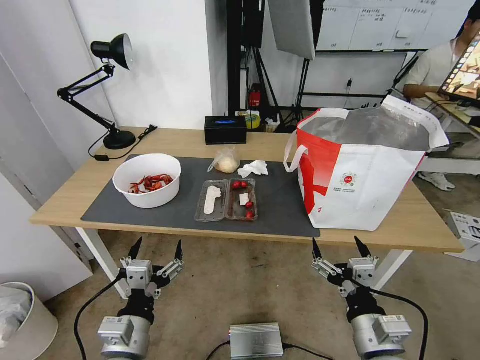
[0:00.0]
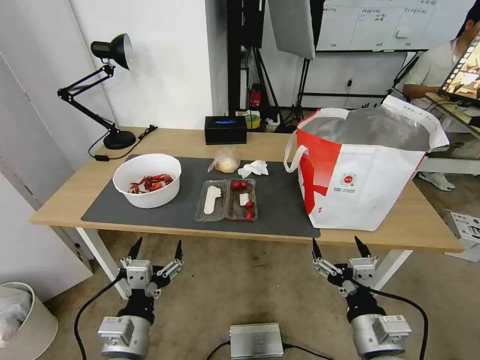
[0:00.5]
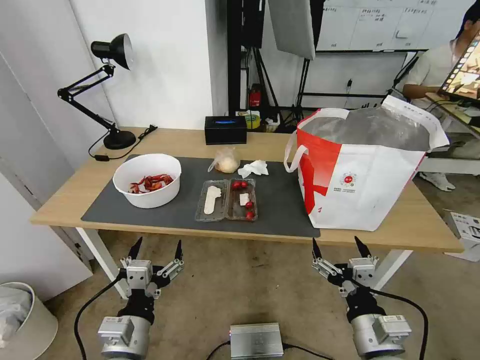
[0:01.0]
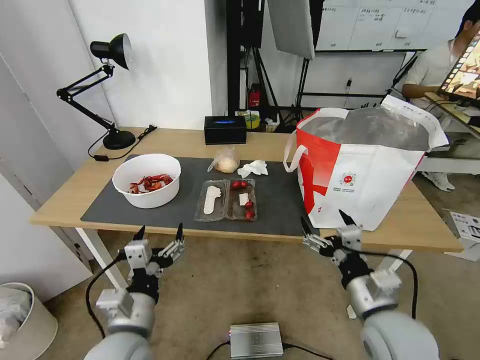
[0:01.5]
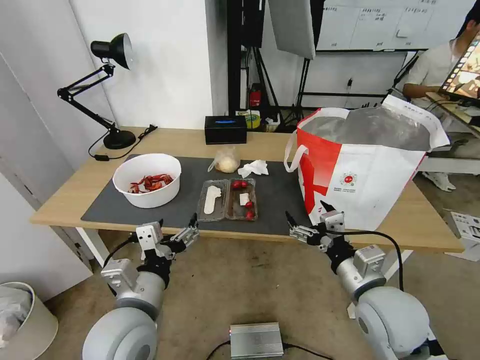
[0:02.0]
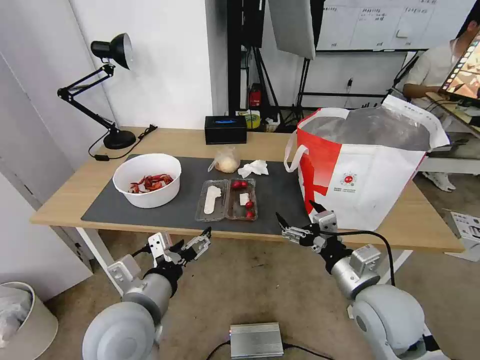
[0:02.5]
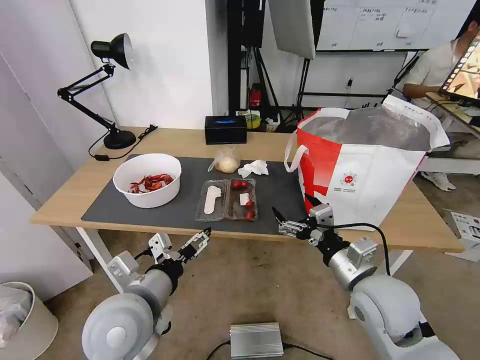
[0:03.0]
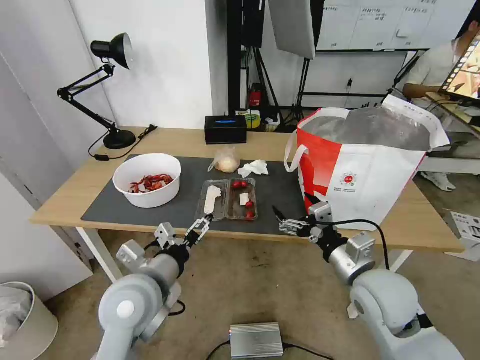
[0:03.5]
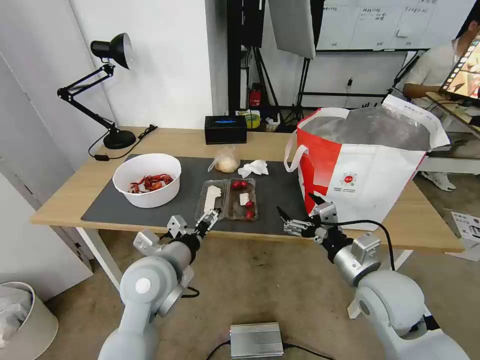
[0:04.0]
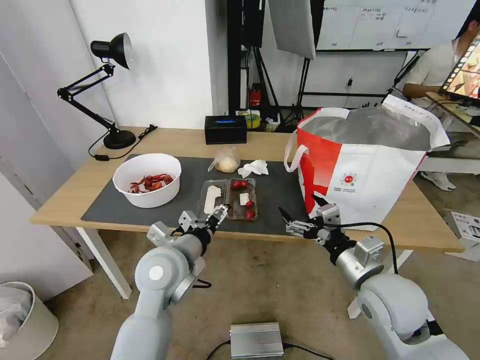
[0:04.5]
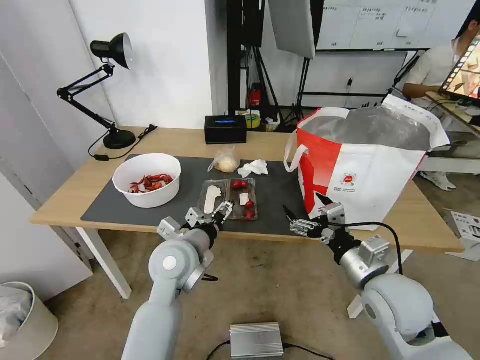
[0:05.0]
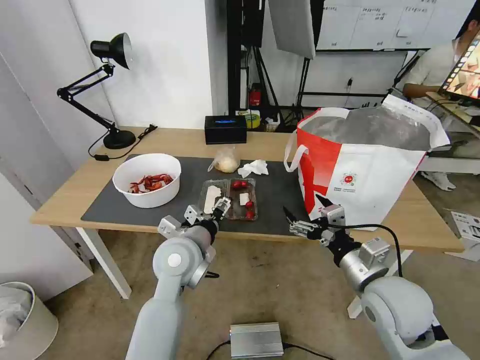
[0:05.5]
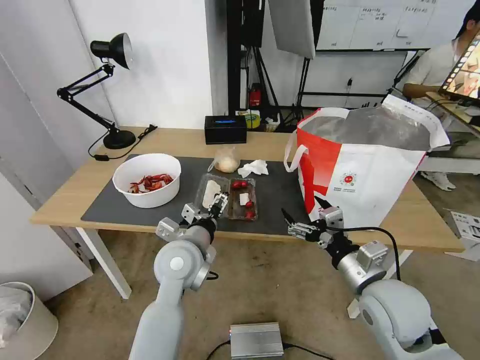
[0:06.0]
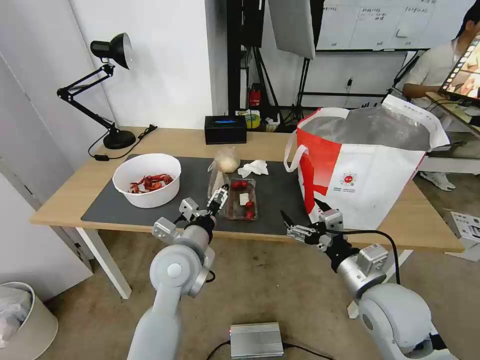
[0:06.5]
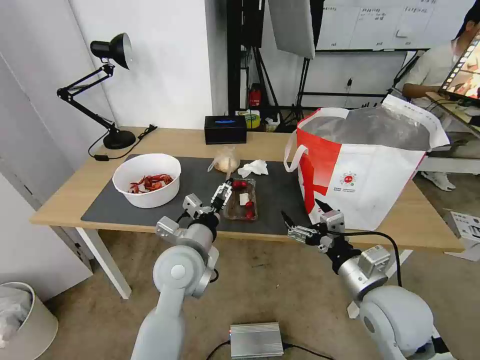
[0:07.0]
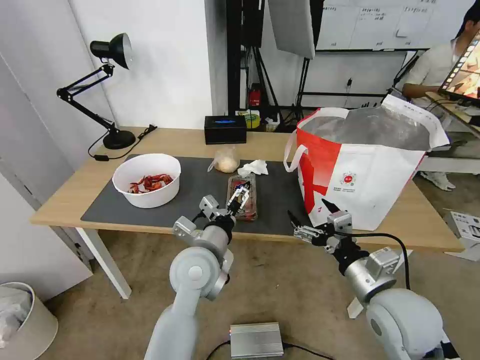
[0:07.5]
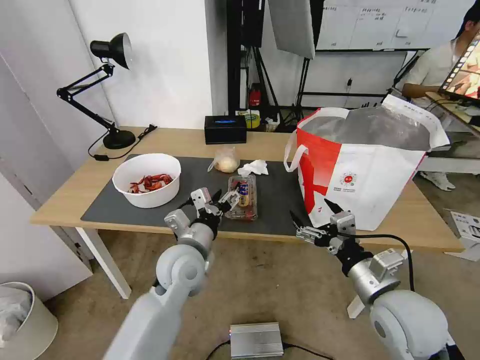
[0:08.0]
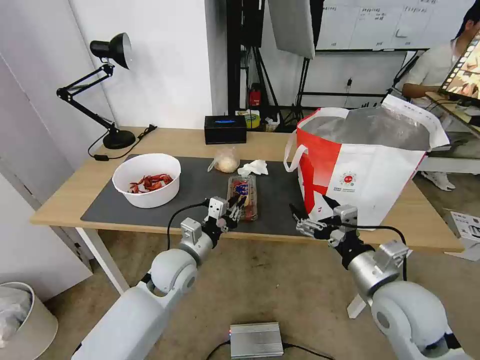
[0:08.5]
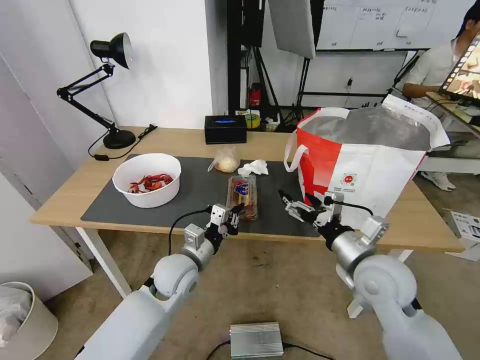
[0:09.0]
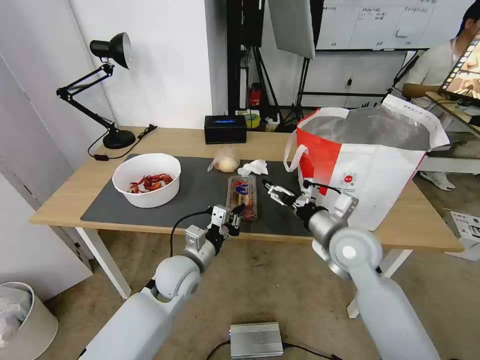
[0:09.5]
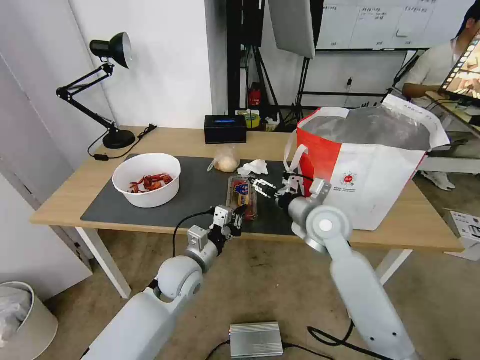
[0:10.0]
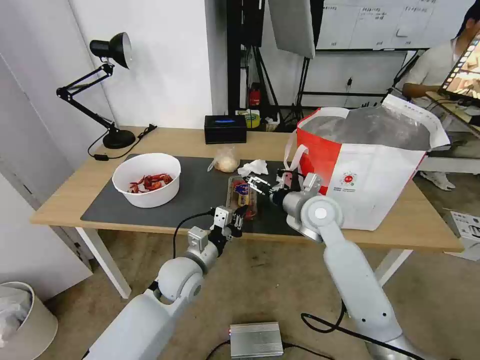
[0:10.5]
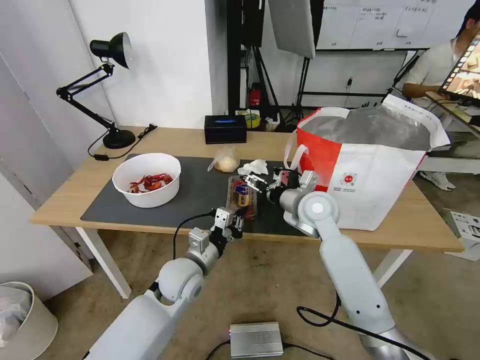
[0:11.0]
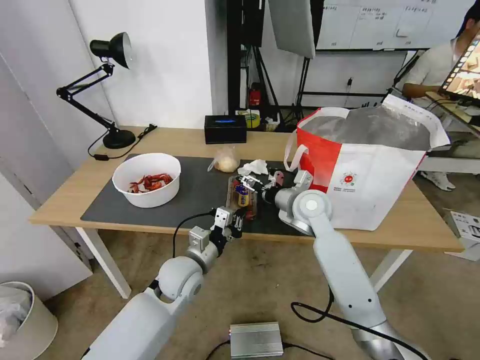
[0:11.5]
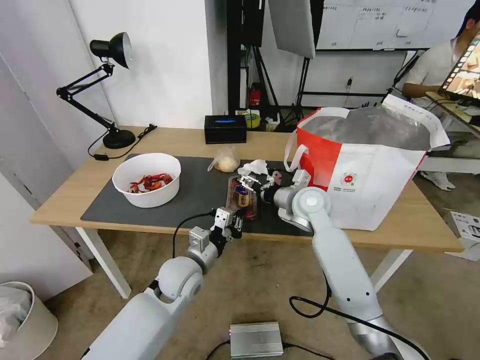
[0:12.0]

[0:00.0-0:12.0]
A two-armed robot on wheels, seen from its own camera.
Task of the whole recording: Pick up the trash from the table and place it into the takeout bag.
0:02.0 to 0:04.0: The left gripper goes roughly 10 cm forward.
0:04.0 to 0:06.0: The left gripper shifts by approximately 5 cm.
0:08.0 to 0:10.0: The right gripper moves forward and to the left, approximately 20 cm. Meanwhile the left gripper shifts about 5 cm downward, and closes.
0:10.0 to 0:12.0: The right gripper moves forward, approximately 5 cm.

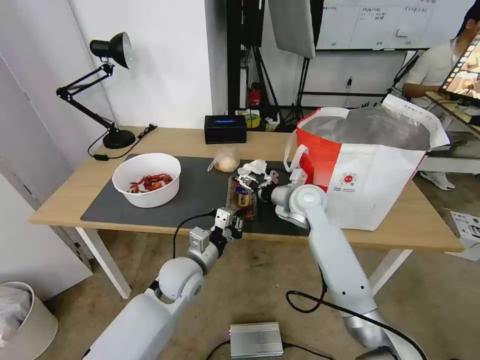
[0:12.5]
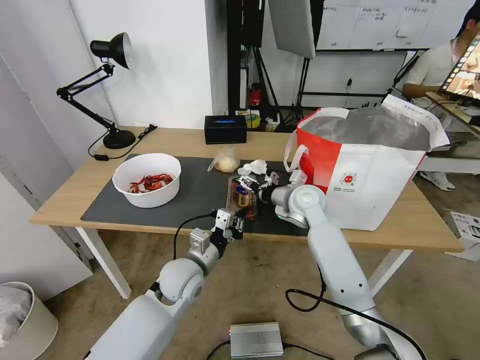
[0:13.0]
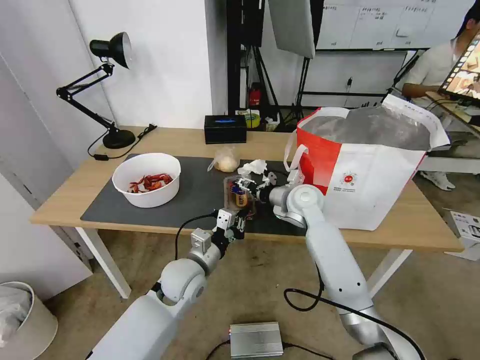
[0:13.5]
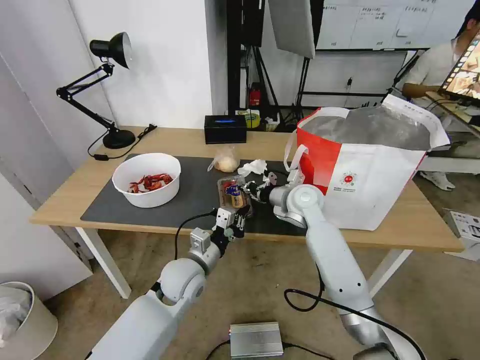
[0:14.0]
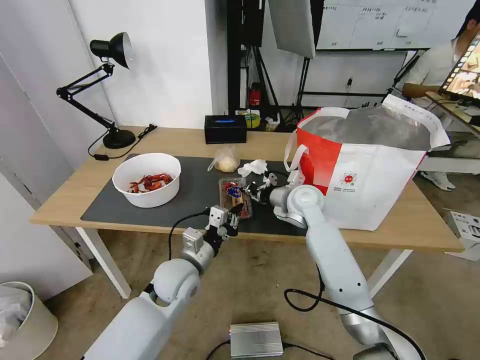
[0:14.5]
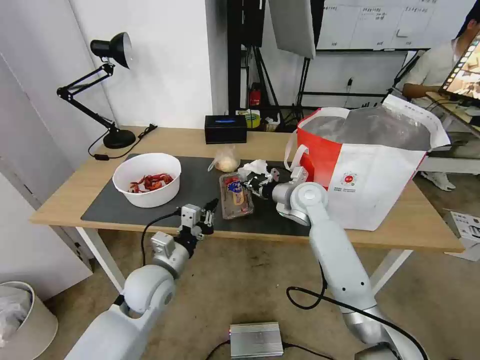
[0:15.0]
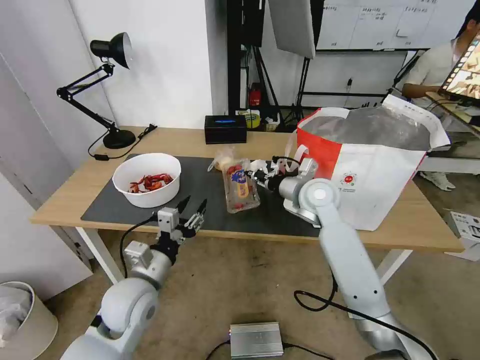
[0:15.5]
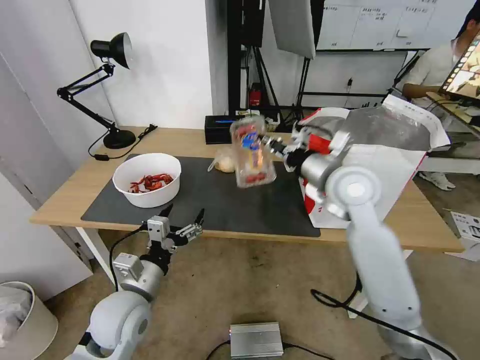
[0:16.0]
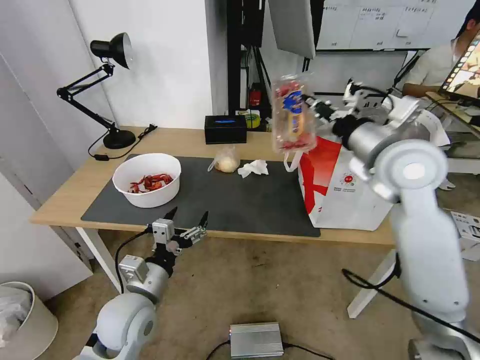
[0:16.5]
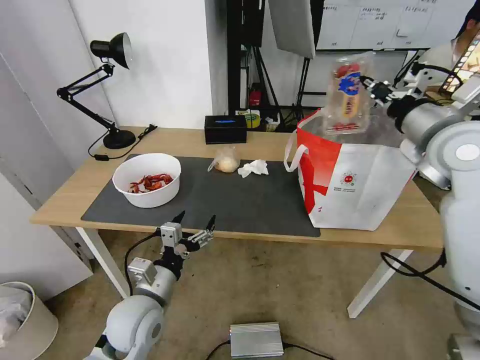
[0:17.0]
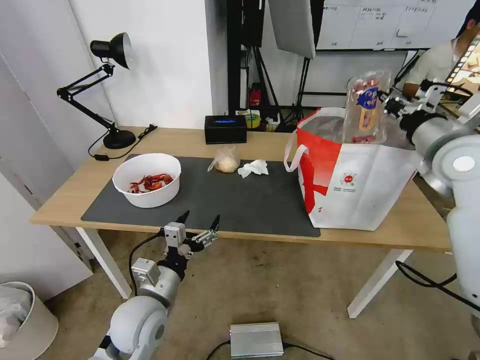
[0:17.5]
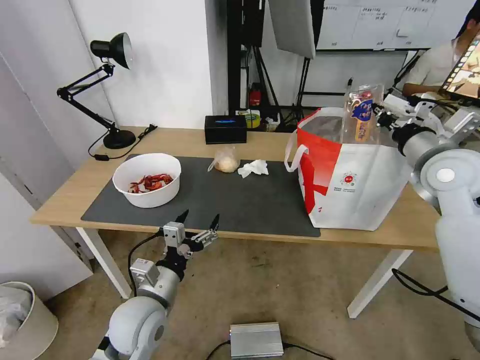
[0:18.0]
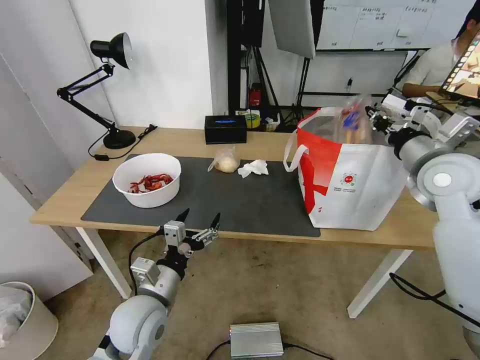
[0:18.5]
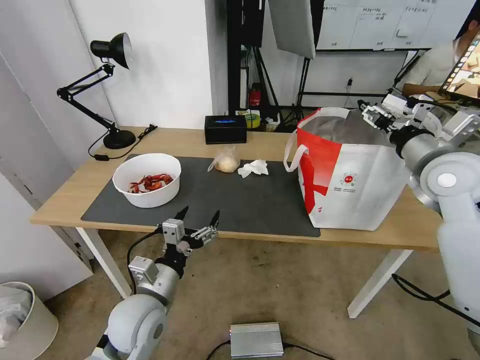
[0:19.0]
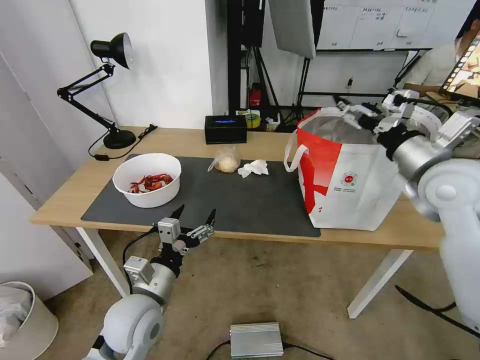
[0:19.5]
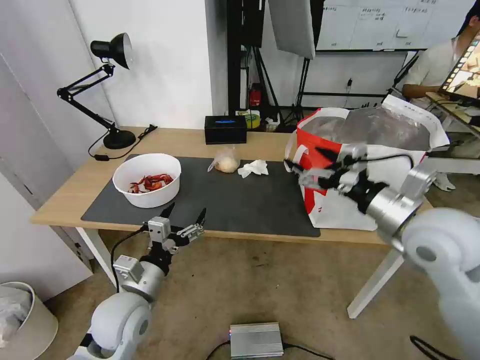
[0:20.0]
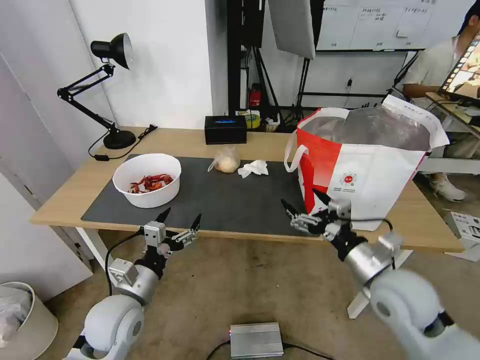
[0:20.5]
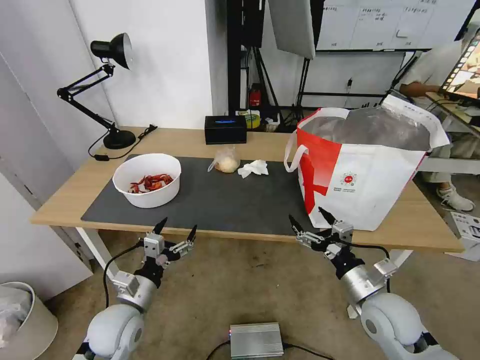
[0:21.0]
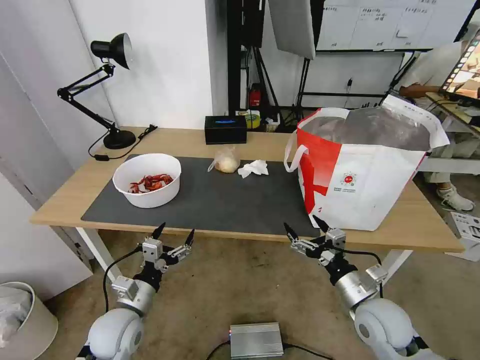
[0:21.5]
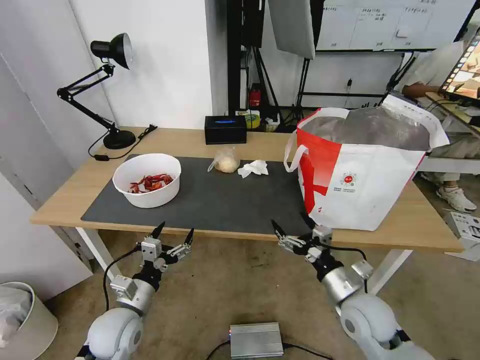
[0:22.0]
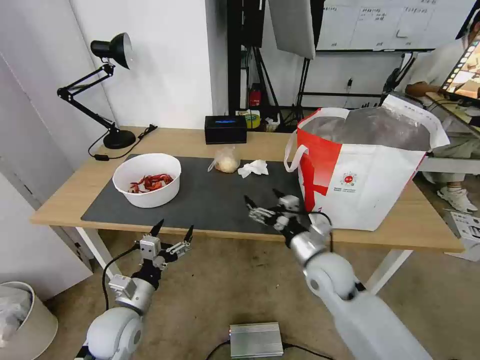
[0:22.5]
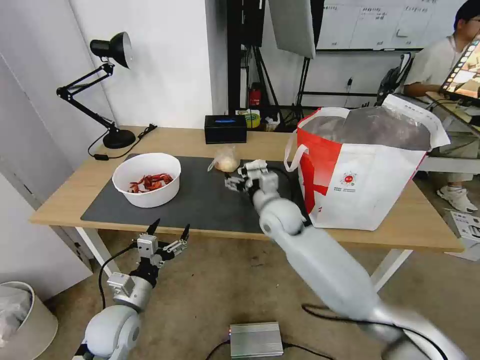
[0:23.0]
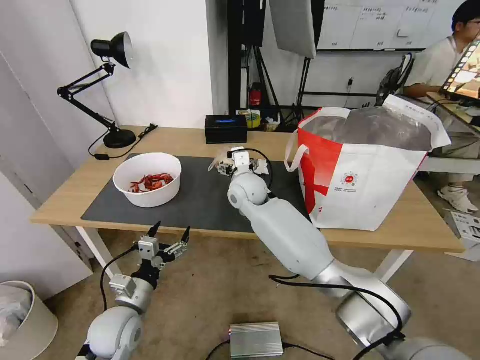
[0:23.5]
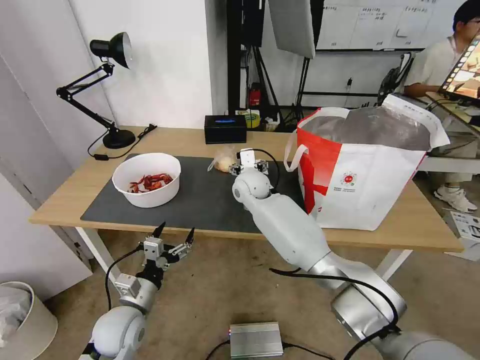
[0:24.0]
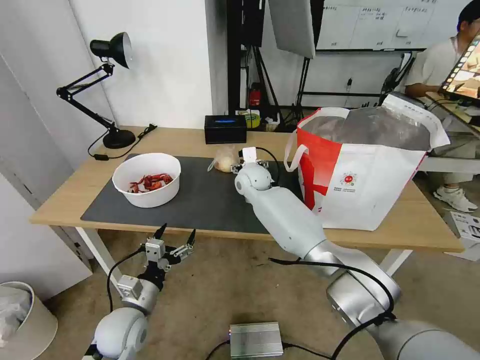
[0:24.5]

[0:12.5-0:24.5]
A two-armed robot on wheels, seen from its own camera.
Task of the whole recording: Pick up the trash from the table and place it into the takeout bag.
0:12.5 to 0:14.5: The right gripper closes up.
0:14.5 to 0:16.5: The right gripper moves upward, to the right and backward, about 25 cm, while the left gripper moves backward and to the left, some 10 cm, and opens up.
0:16.5 to 0:18.5: The right gripper heads to the right, covering roughly 10 cm.
0:18.5 to 0:20.5: The right gripper travels backward, downward and to the left by approximately 25 cm, and opens. Meanwhile the left gripper moves to the left, some 5 cm.
0:20.5 to 0:22.5: The left gripper is displaced downward by approximately 5 cm; the right gripper moves to the left, forward and downward, some 15 cm.
0:22.5 to 0:24.5: The right gripper shifts about 30 cm forward and to the left.

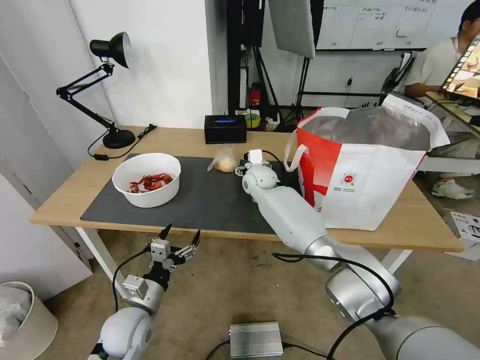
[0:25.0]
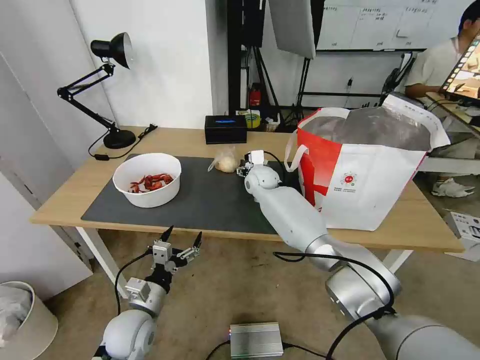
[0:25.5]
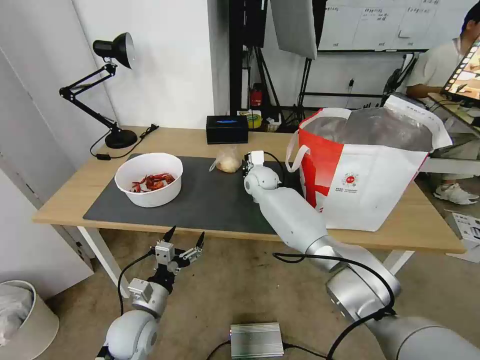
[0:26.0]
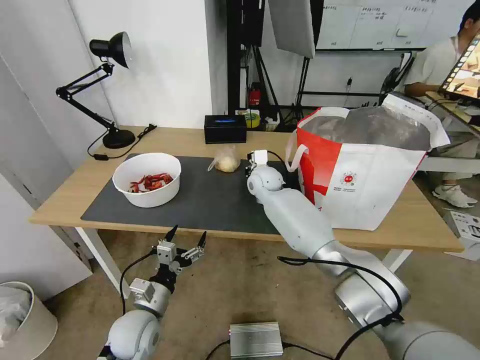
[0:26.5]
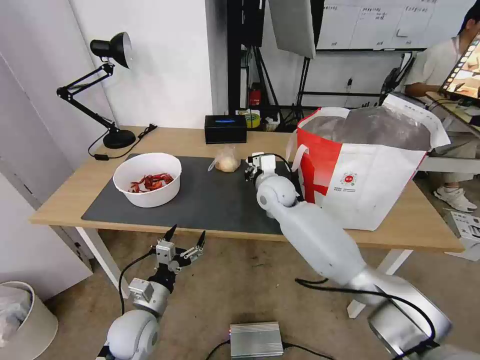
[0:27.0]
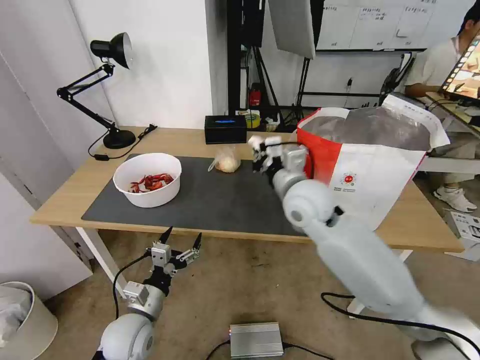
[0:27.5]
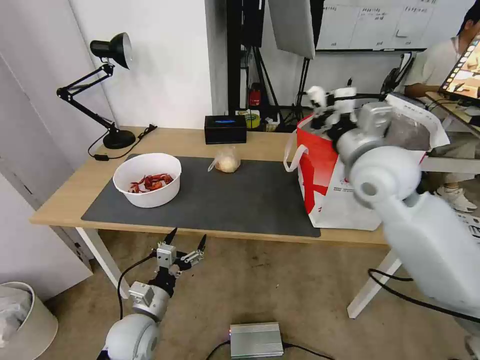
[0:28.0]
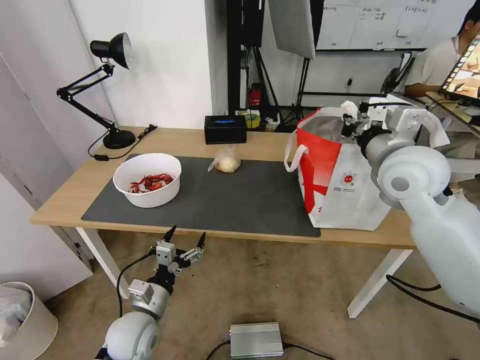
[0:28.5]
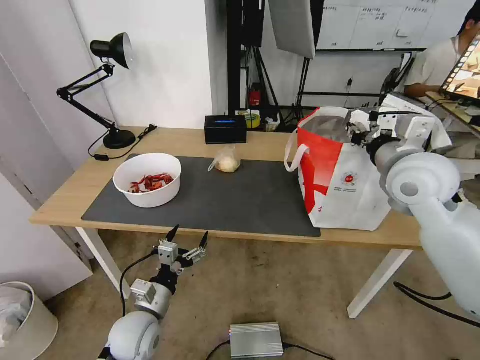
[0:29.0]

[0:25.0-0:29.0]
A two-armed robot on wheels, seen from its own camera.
Task of the whole recording: Pick up the trash from the table and place it into the takeout bag.
0:25.0 to 0:27.0: The right gripper is displaced backward by roughly 10 cm, and closes its fingers.
0:27.0 to 0:29.0: The right gripper travels to the right, upward and backward by approximately 30 cm.
